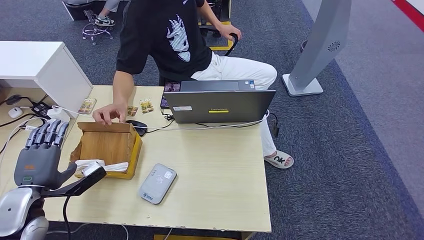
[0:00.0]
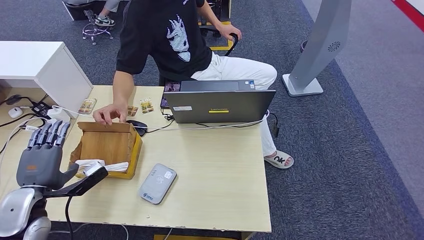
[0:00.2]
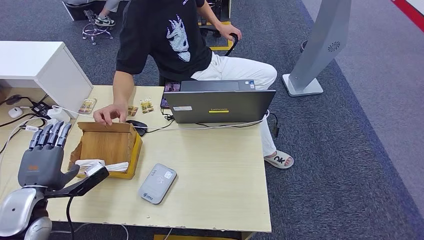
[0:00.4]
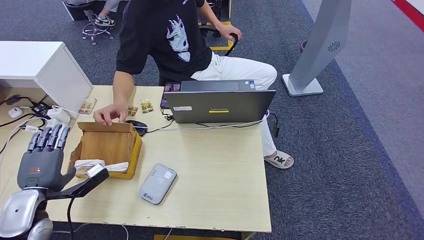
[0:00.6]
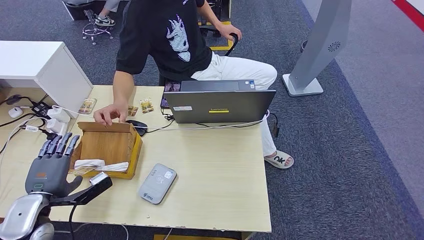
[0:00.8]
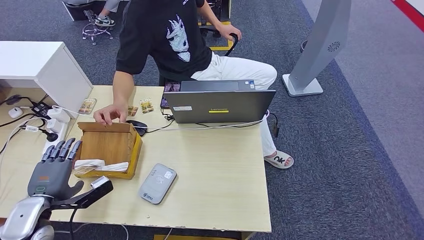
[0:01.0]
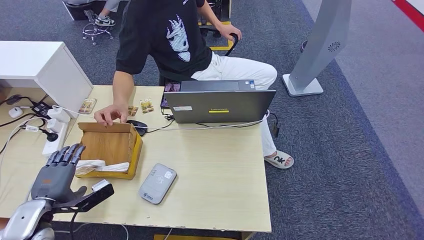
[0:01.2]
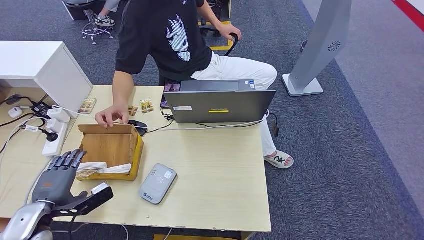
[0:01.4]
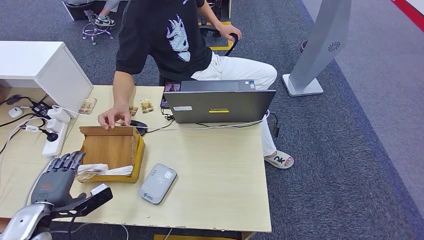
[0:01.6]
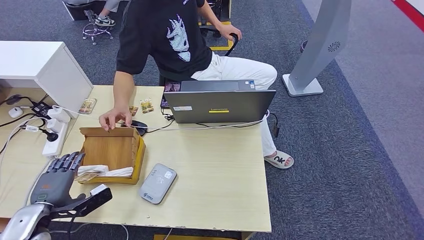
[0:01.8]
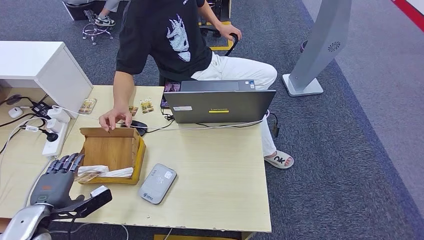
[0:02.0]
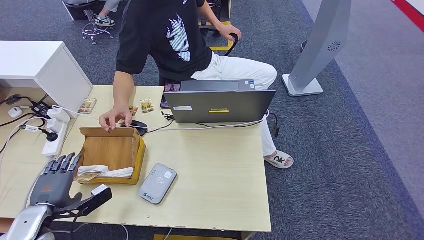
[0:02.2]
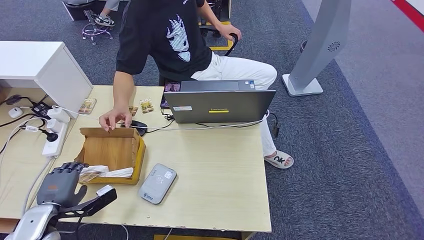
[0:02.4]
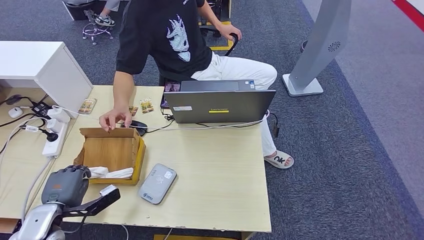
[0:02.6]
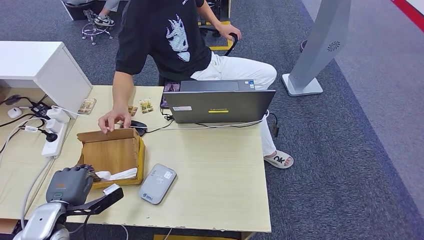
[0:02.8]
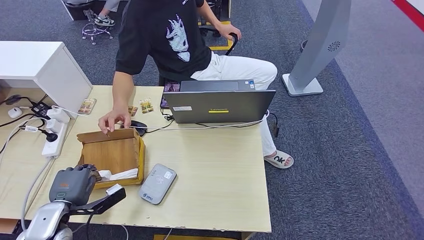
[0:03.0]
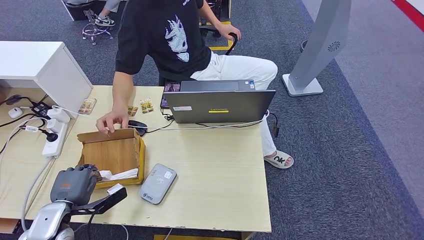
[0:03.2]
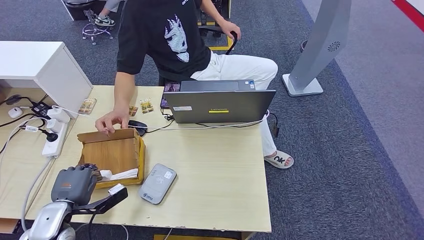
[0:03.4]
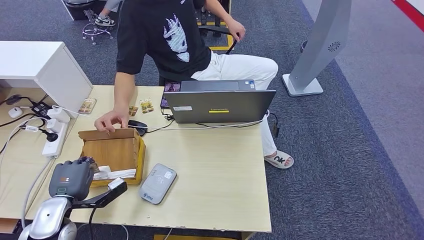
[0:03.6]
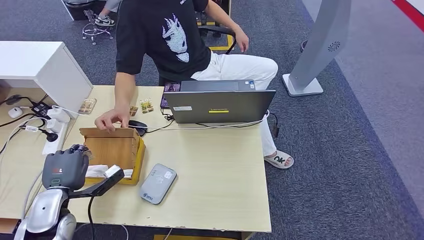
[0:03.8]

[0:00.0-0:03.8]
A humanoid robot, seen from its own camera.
Step, 0:00.0 to 0:03.6: Hand the room key to the person.
0:00.0 to 0:01.2: The hands stay close to where they were, moving slightly.
0:01.2 to 0:03.8: The hands move only a little.
